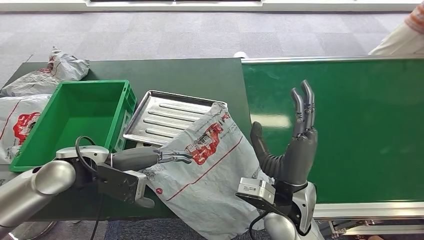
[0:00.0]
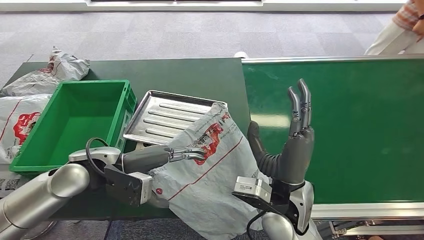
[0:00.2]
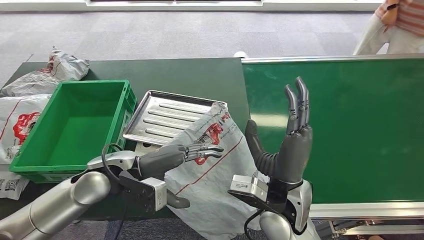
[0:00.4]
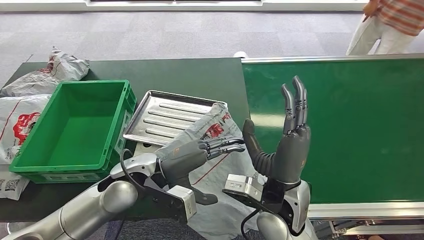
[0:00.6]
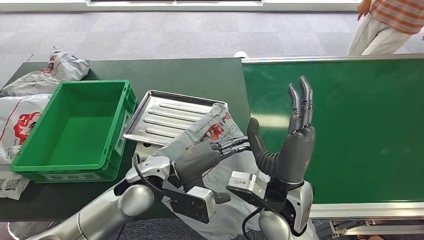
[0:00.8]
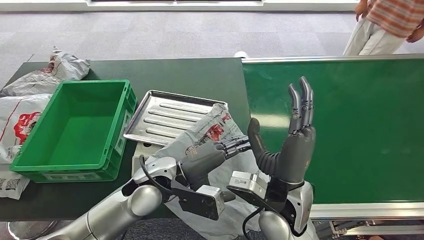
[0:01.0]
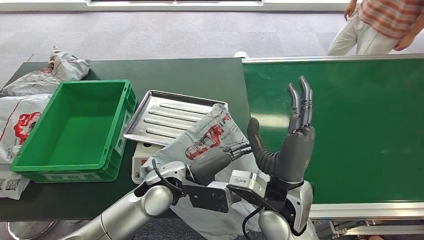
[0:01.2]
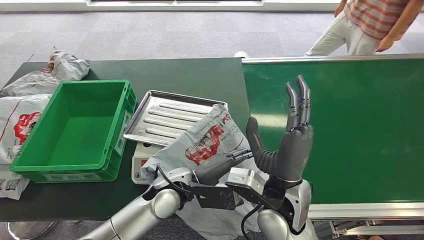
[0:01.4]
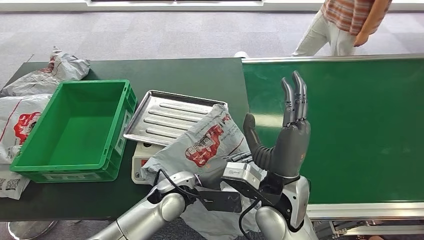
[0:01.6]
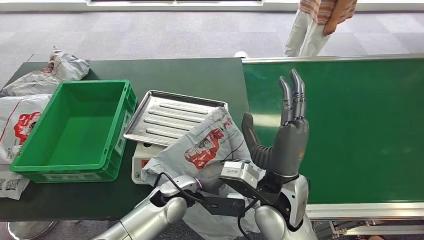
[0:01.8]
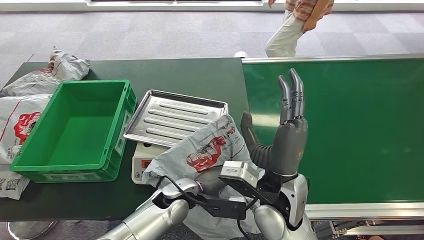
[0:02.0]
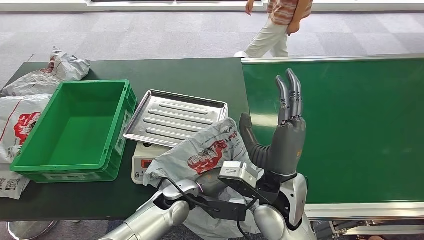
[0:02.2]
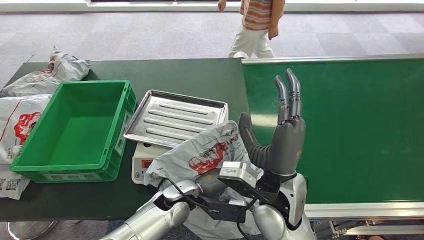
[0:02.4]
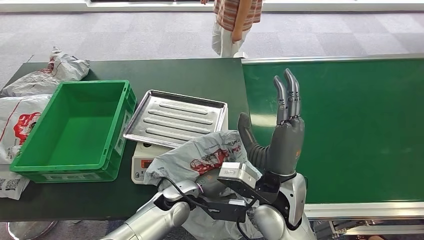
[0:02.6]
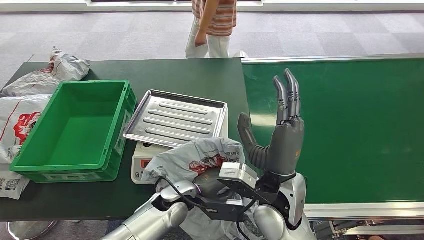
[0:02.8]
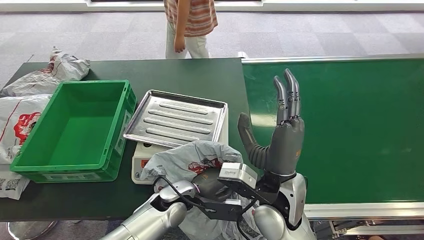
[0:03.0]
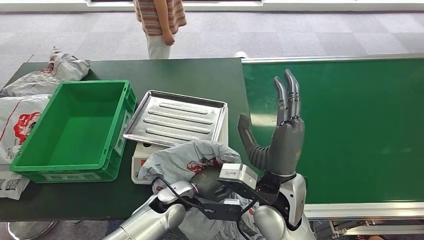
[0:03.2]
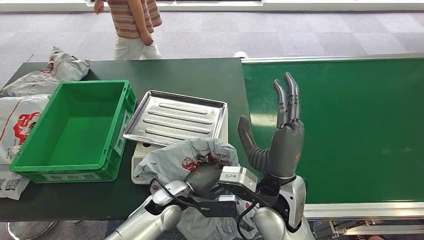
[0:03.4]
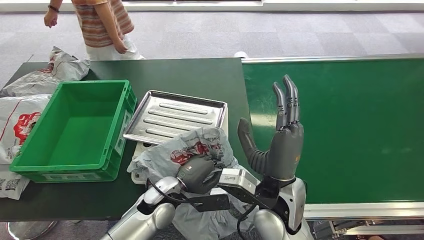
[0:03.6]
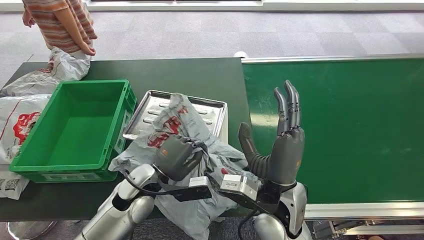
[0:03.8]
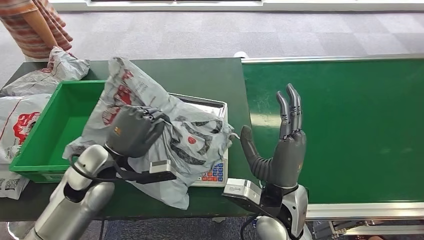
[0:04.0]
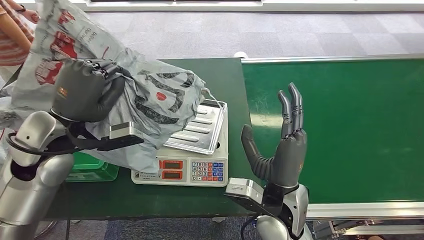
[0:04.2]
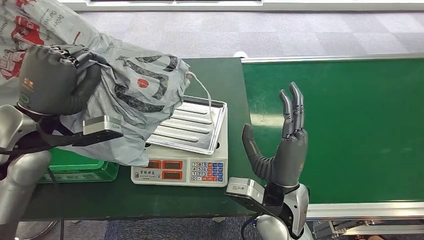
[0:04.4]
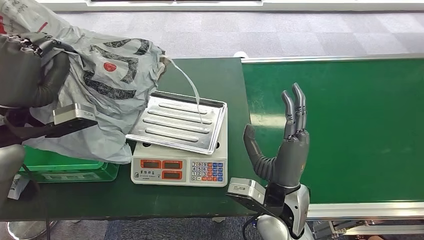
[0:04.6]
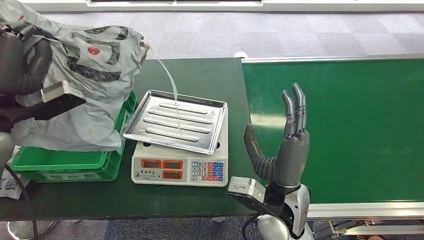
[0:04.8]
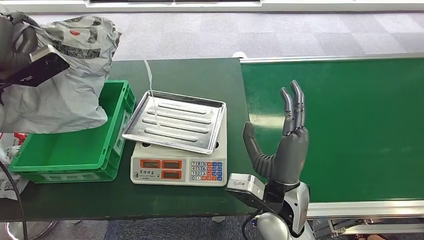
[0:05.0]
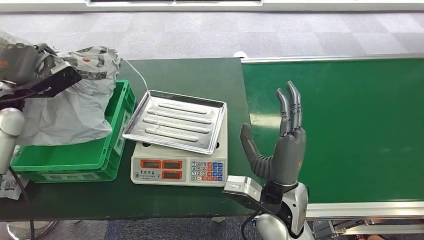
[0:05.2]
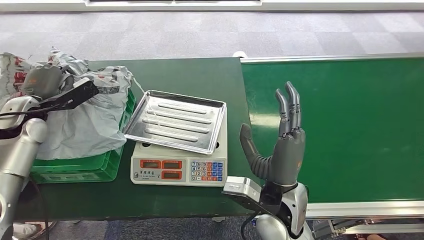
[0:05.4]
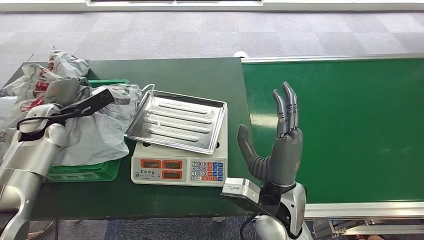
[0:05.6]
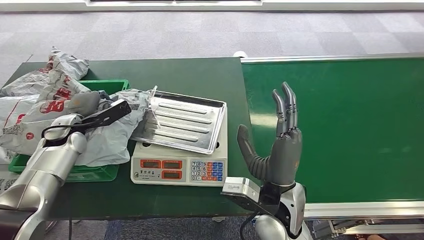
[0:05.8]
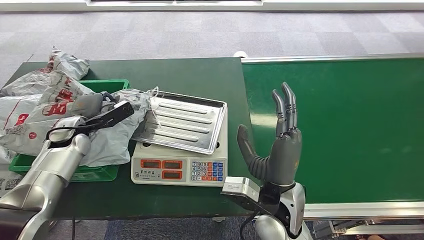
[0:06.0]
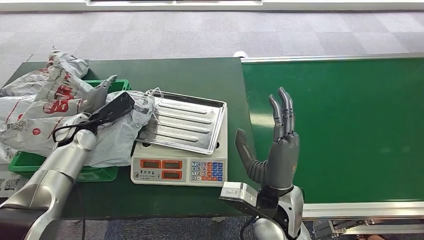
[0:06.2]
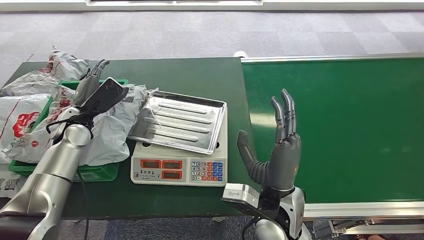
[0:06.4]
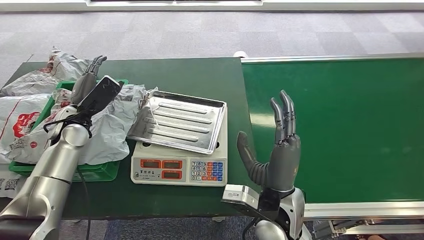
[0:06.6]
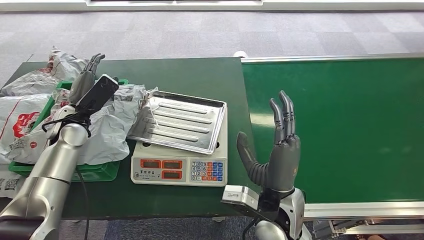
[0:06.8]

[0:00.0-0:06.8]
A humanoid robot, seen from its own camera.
Task of the whole recording: Weigh the package on the weighing device and place it in the left basket.
Step, 0:00.0 to 0:04.8: Pick up the package from the inbound machine.
Step, 0:05.2 to 0:06.8: Place the package into the parcel locker.

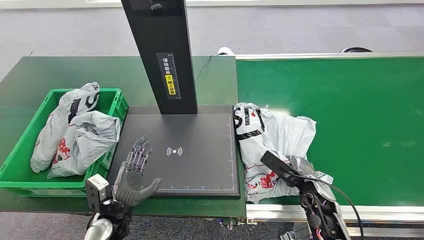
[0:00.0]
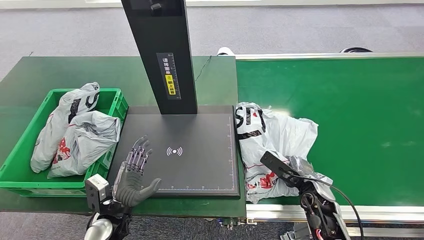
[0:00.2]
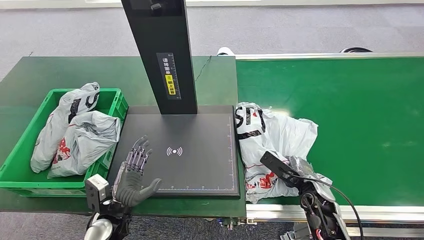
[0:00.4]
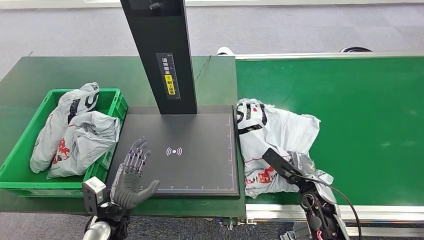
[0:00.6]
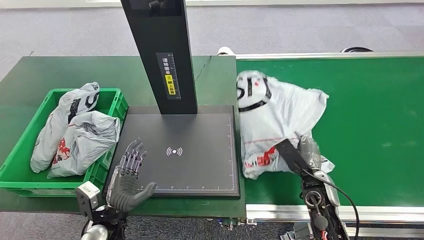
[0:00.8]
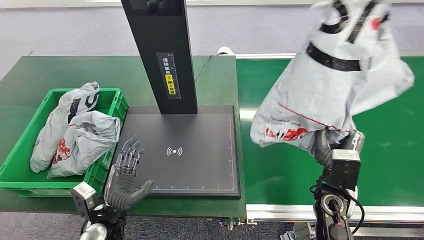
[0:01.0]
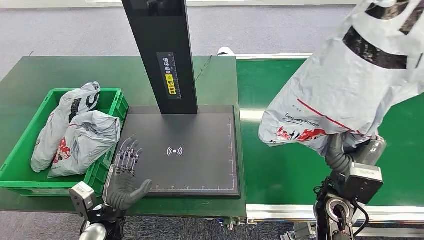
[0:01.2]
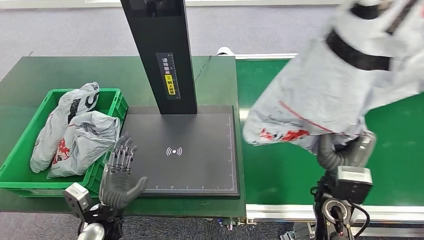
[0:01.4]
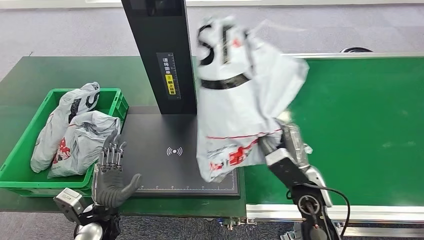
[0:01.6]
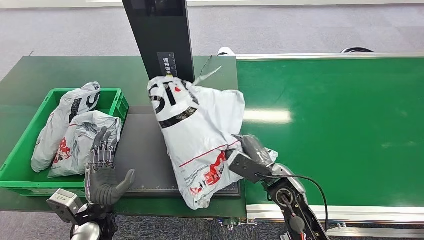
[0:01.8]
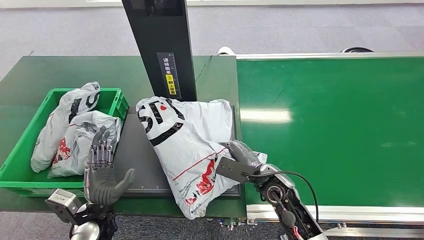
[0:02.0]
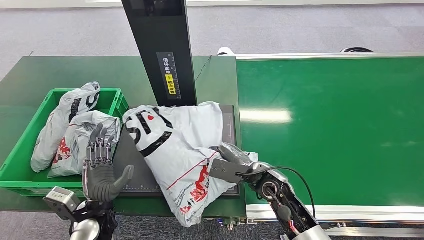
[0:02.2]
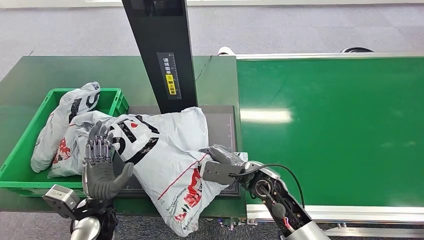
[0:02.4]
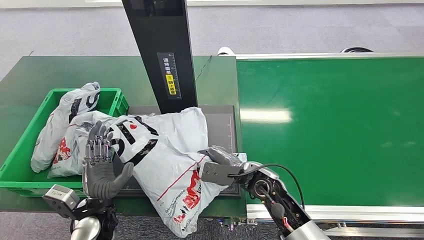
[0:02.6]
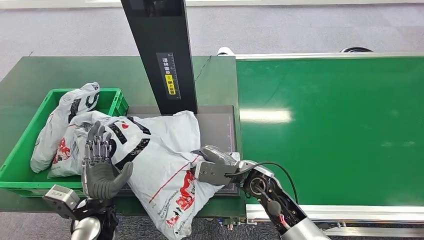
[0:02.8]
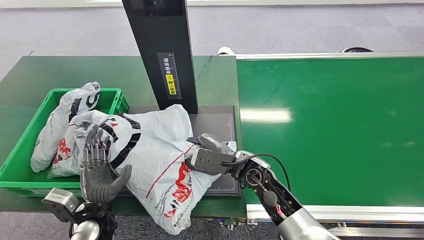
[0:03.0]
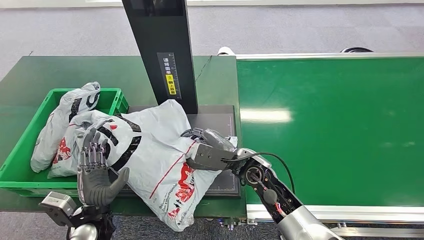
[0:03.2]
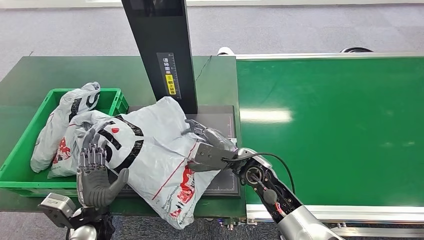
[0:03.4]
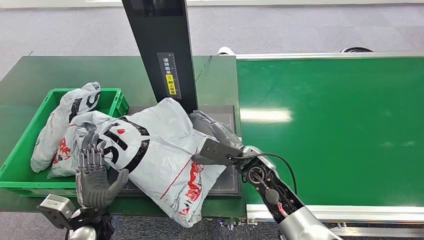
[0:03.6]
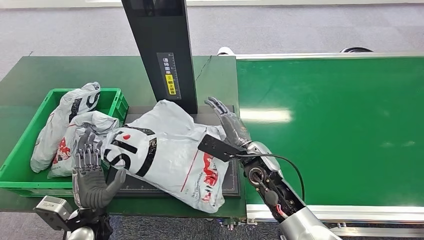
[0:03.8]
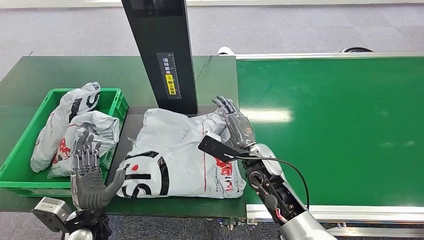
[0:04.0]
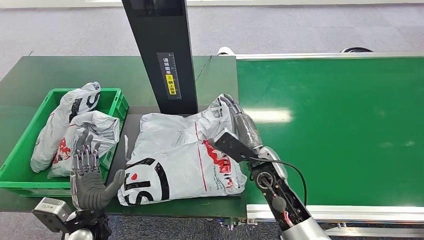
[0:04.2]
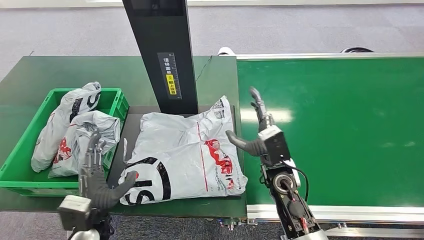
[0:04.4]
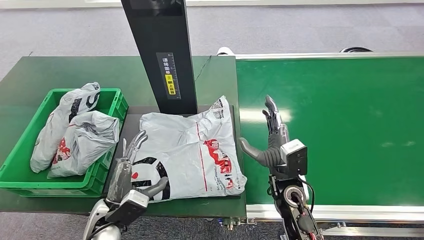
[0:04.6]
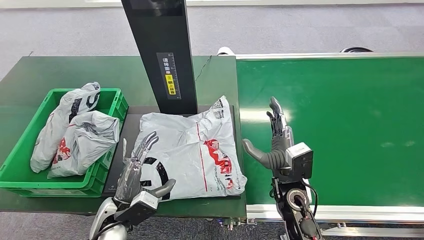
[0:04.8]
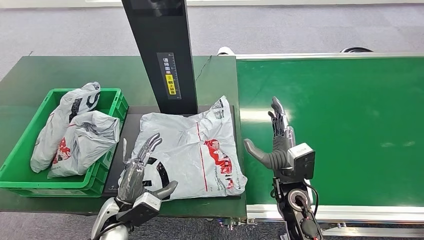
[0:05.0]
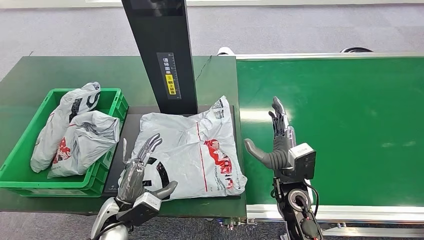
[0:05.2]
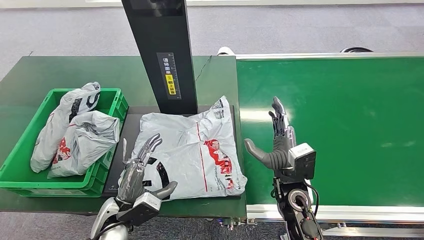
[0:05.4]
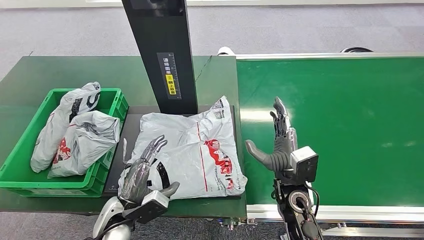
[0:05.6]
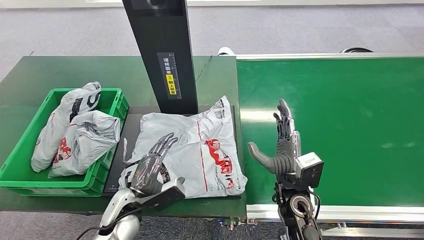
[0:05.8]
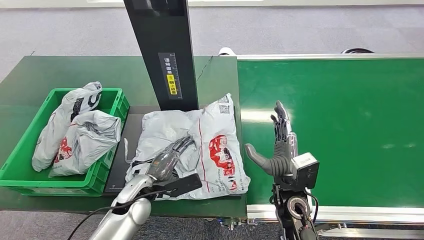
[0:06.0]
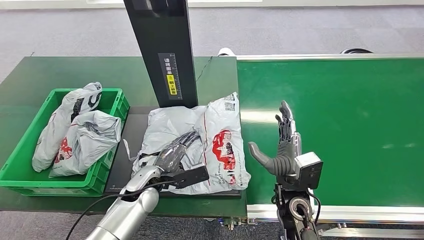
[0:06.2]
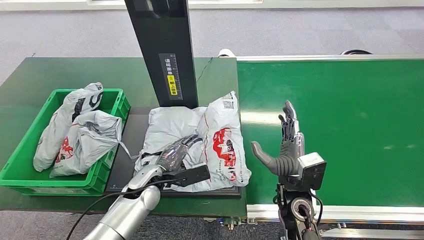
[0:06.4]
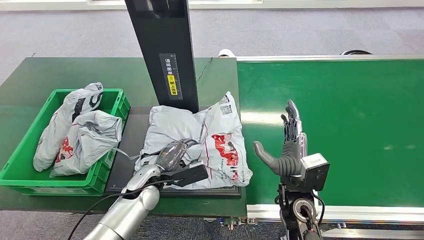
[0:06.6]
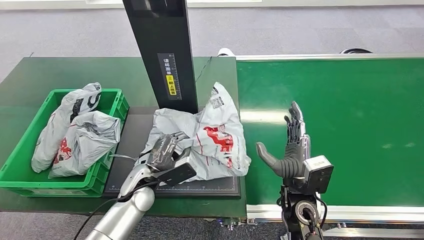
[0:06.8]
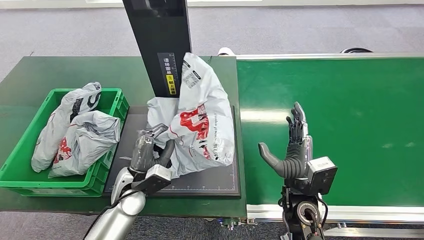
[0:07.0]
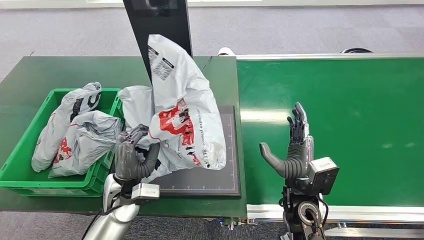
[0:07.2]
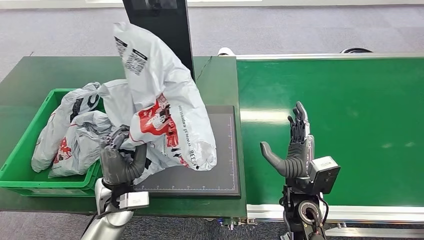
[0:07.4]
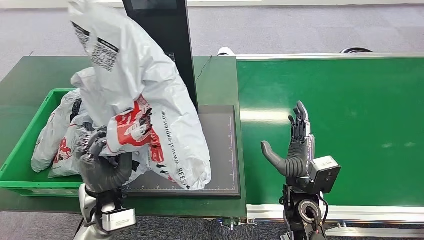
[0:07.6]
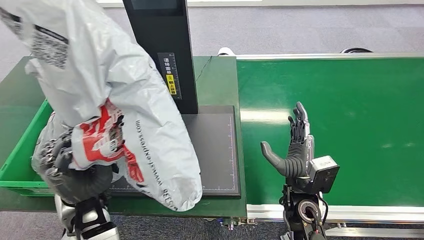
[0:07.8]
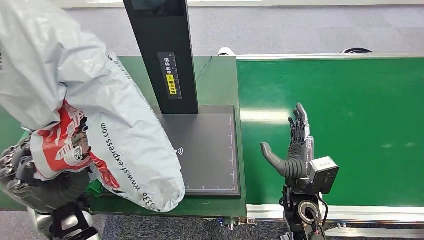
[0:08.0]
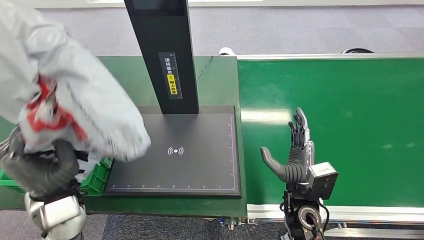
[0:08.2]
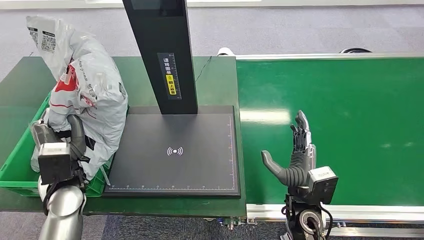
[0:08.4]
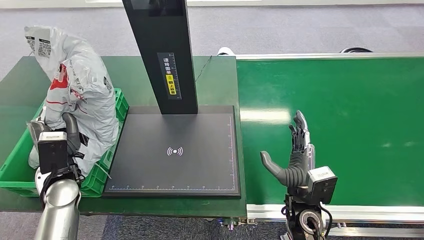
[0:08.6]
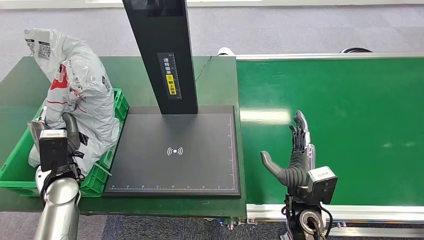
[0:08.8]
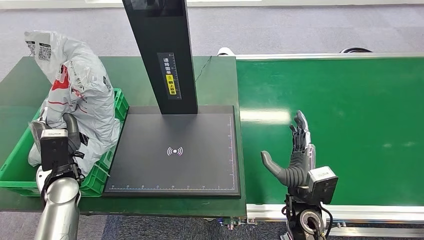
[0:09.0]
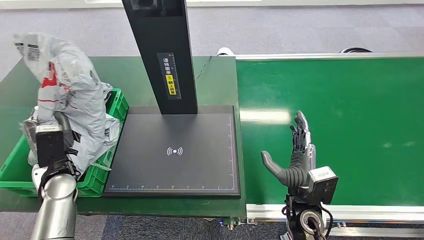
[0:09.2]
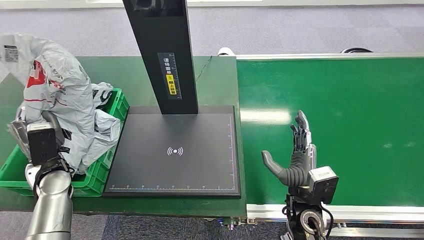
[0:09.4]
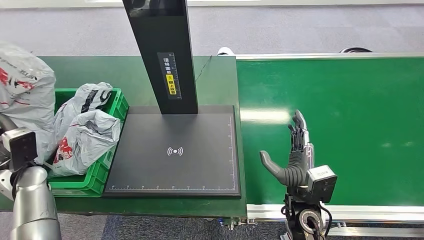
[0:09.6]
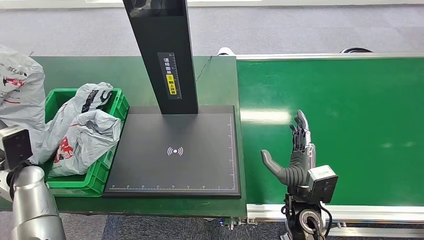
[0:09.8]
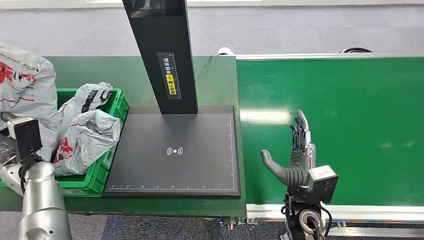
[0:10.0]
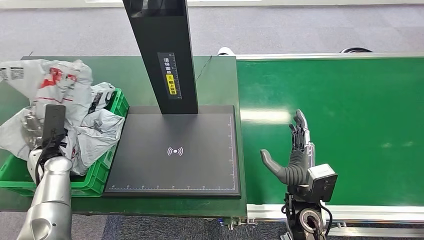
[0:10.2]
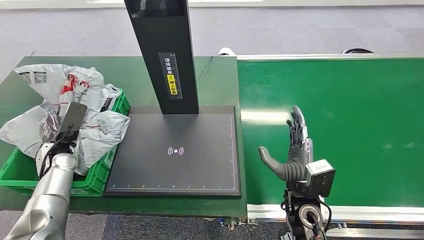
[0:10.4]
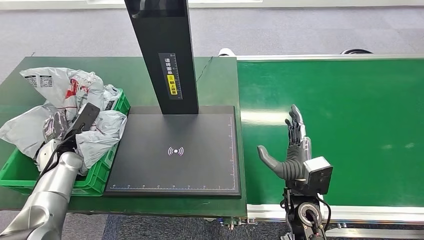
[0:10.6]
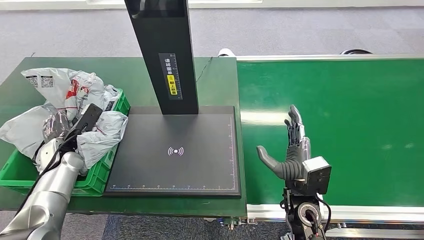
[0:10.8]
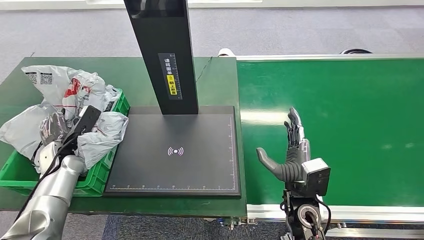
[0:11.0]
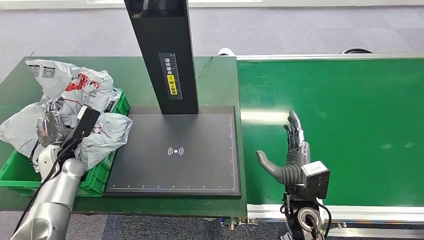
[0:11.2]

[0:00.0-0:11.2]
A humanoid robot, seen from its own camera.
Task of the whole recording: Weigh the package on the weighing device and place it in the left basket.
Step, 0:00.0 to 0:01.4: Pick up the package from the conveyor belt.
Step, 0:01.8 to 0:04.8: Place the package onto the inbound machine.
Step, 0:05.0 to 0:07.8: Pick up the package from the inbound machine.
0:09.6 to 0:11.2: The left hand changes place by roughly 5 cm.
